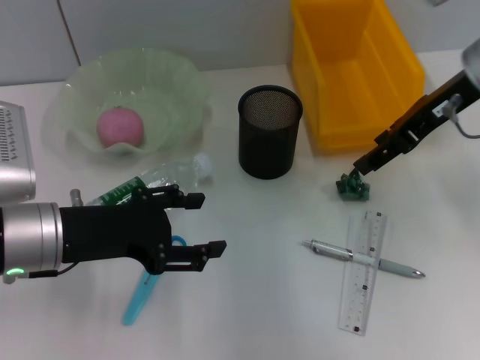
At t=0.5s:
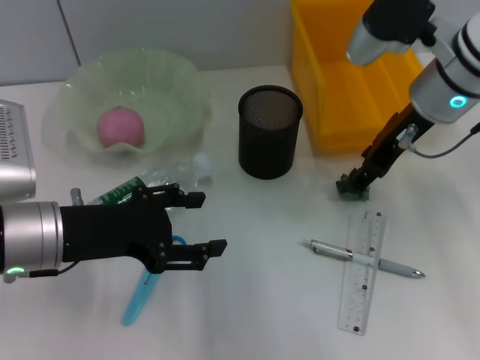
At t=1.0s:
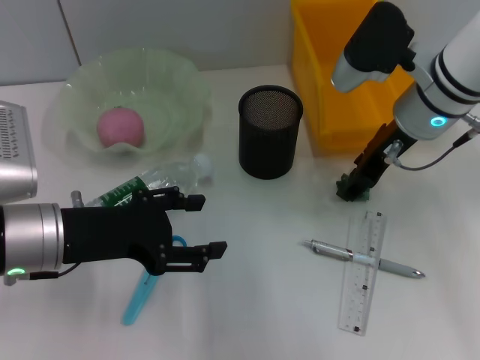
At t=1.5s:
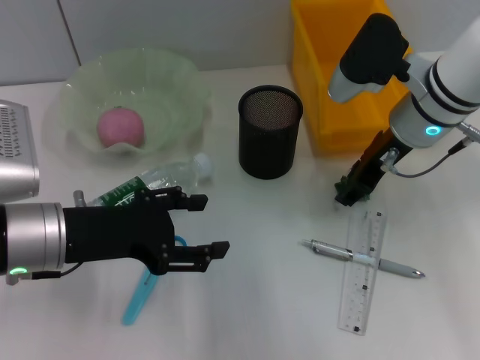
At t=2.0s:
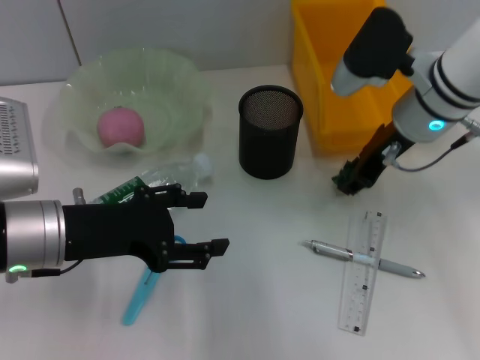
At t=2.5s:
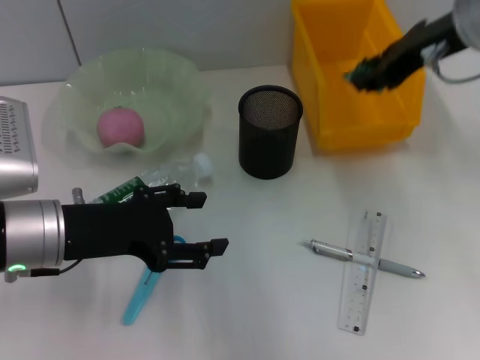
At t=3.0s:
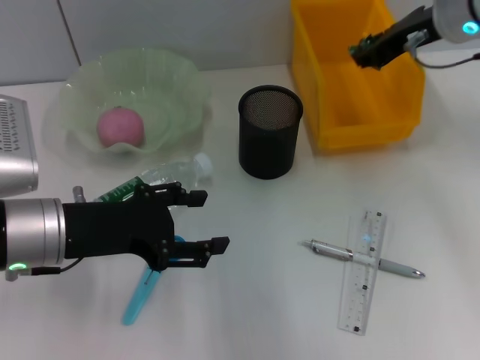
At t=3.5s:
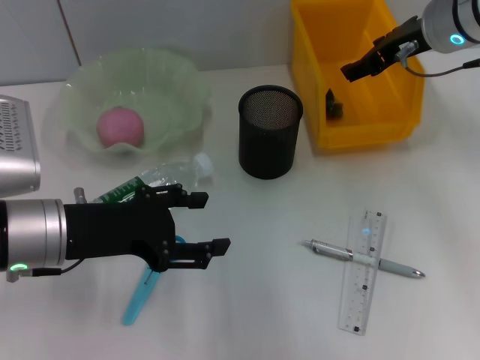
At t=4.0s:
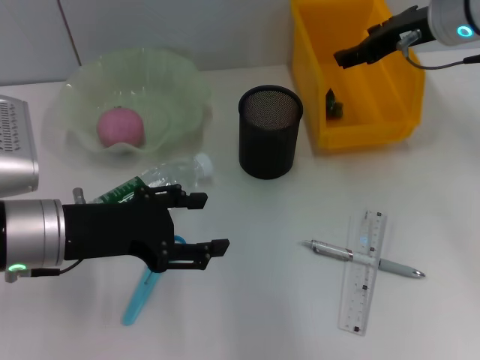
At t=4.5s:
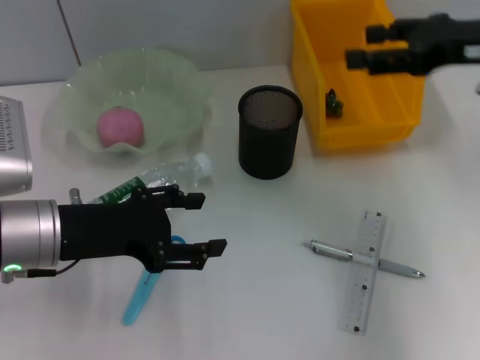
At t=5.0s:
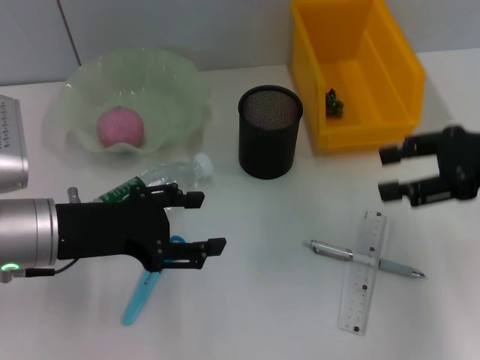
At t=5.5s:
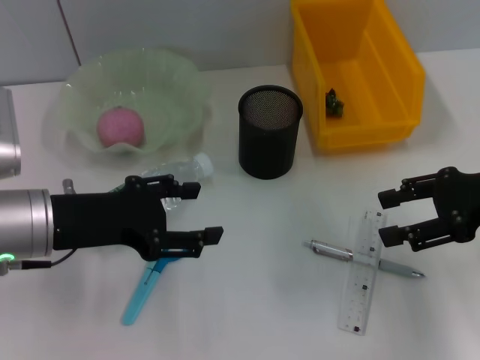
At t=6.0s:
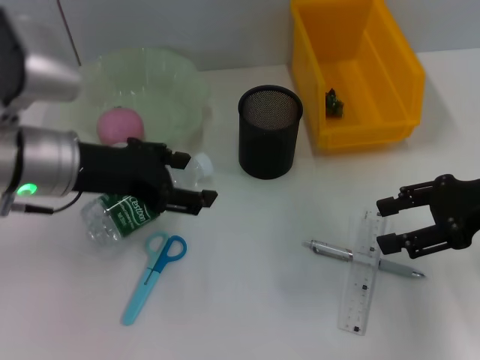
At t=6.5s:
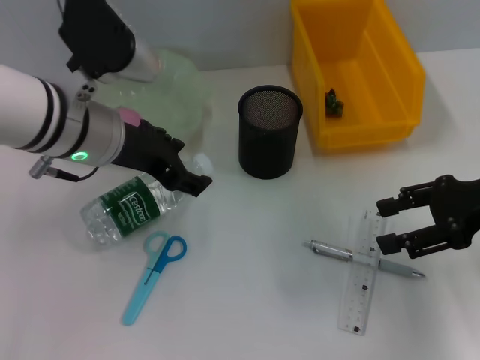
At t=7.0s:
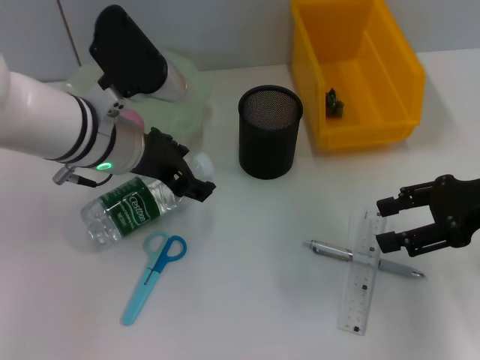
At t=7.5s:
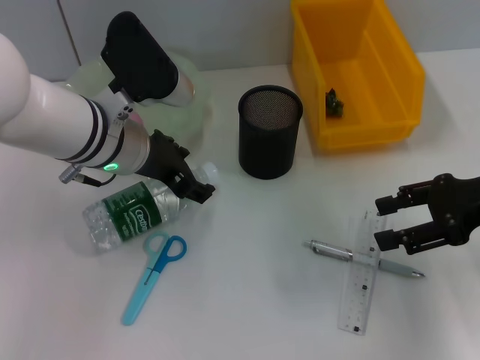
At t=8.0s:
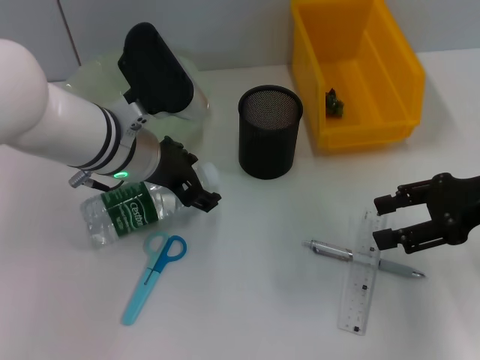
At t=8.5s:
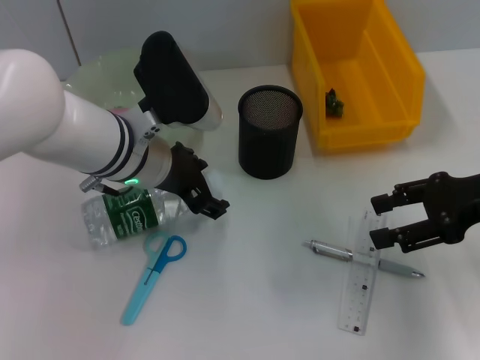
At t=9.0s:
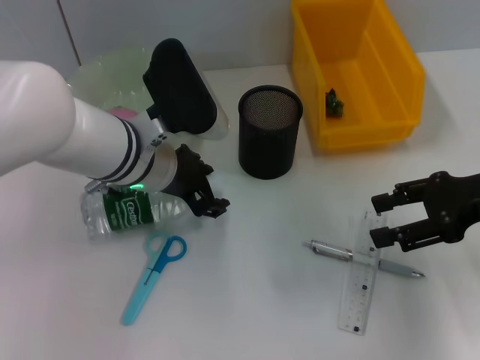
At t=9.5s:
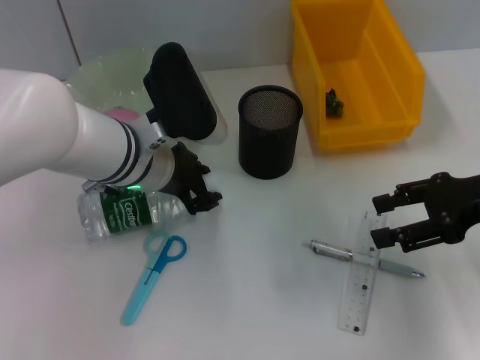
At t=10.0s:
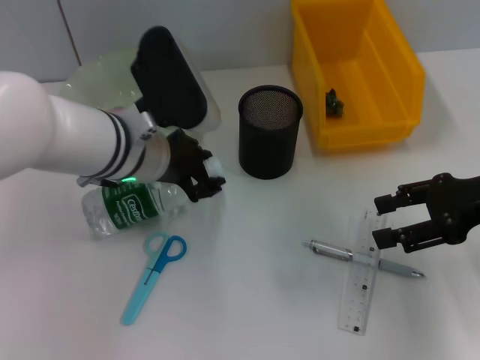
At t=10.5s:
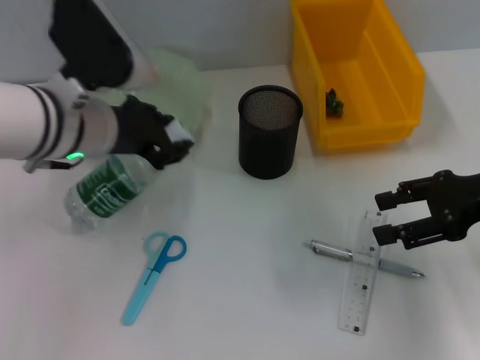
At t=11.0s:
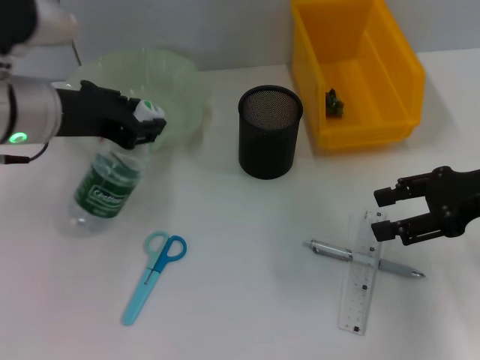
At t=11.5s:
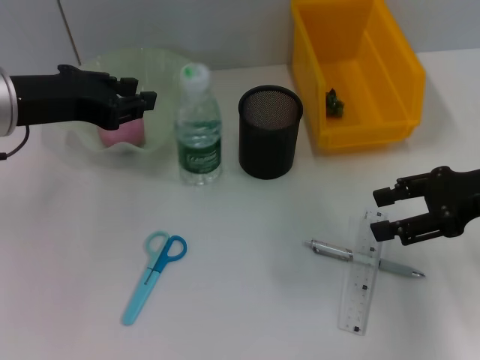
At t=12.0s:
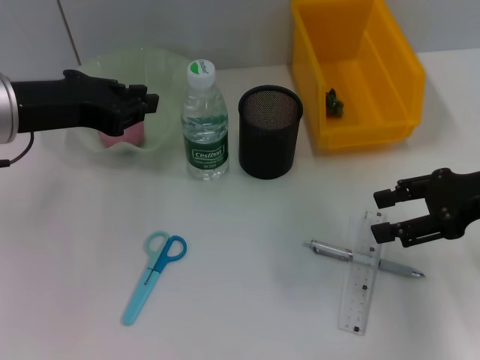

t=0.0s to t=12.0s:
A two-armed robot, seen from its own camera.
Step, t=2.0s to t=3.5s: Place the plastic into the trash can with the right hand.
Step, t=4.0s to t=9.5s: Grab the water bottle with the left hand.
t=0.0s to t=2.0s: The right gripper moves downward, some 5 cm.
t=2.0s to t=4.0s: The right gripper heads upward, covering roughly 5 cm.
t=4.0s to t=6.0s: The right gripper goes some 15 cm backward, to the right and downward; the left gripper ends up some 5 cm from where it was.
t=6.0s to t=8.0s: The left gripper is displaced to the right by about 5 cm.
t=8.0s to t=10.0s: The left gripper closes.
t=10.0s to t=12.0s: The left gripper travels to the left and upward by some 15 cm.

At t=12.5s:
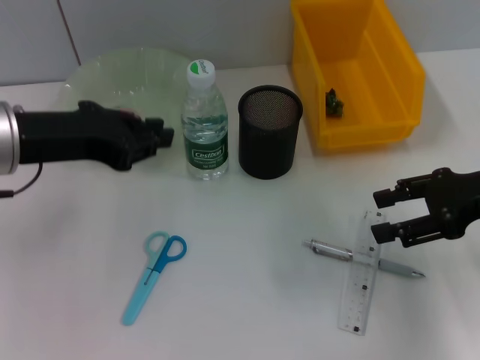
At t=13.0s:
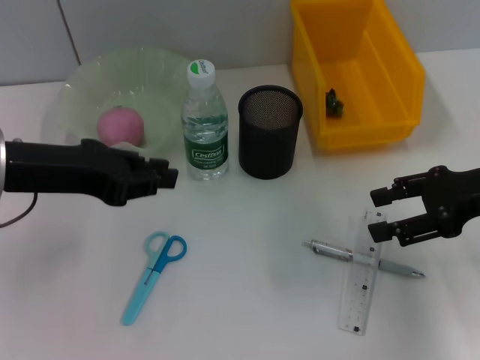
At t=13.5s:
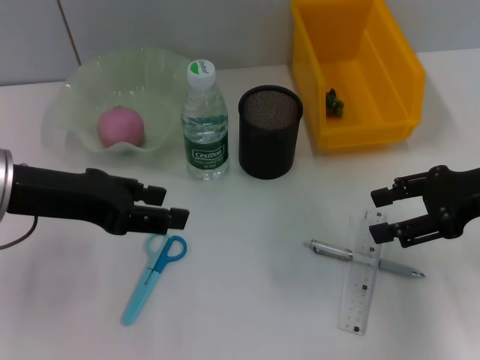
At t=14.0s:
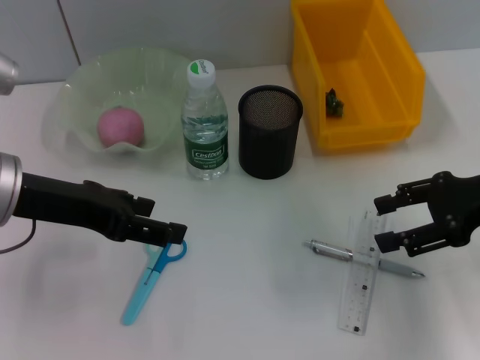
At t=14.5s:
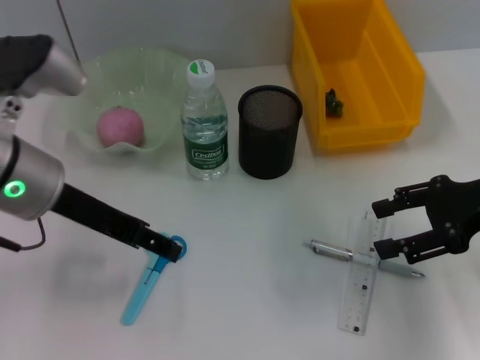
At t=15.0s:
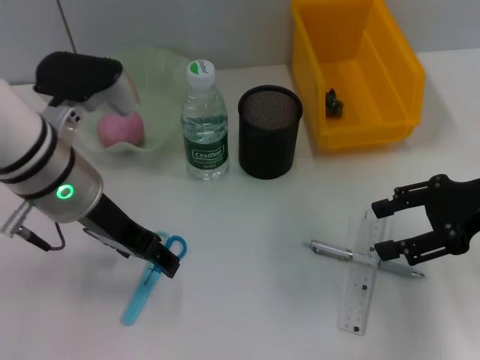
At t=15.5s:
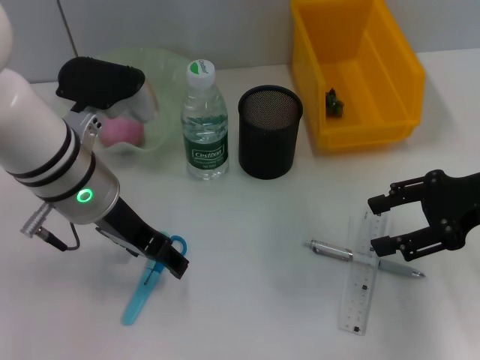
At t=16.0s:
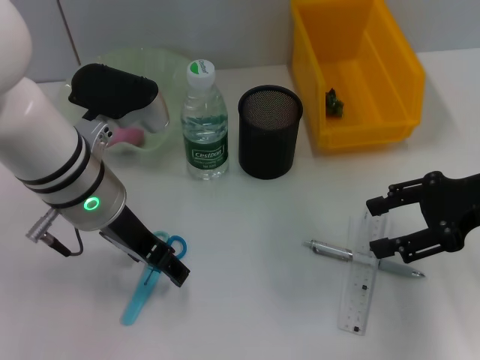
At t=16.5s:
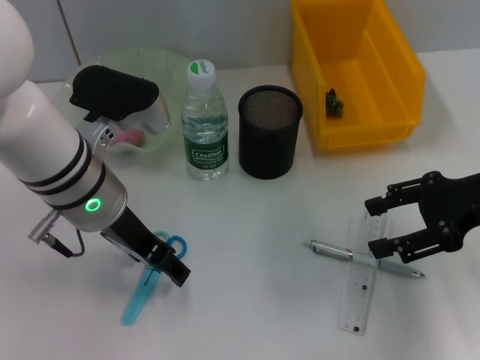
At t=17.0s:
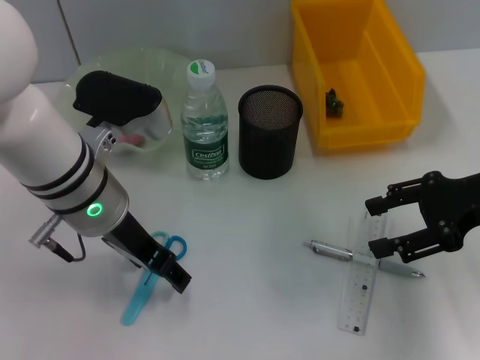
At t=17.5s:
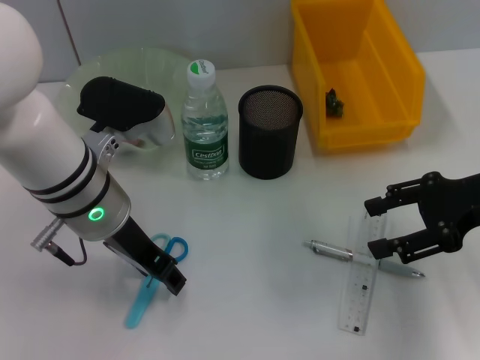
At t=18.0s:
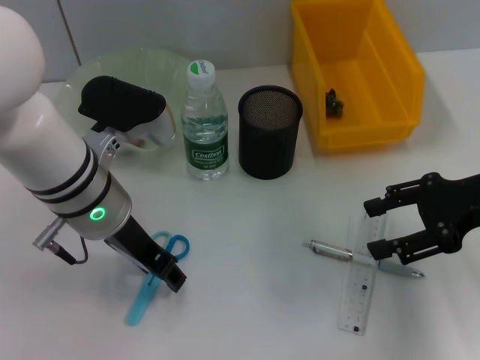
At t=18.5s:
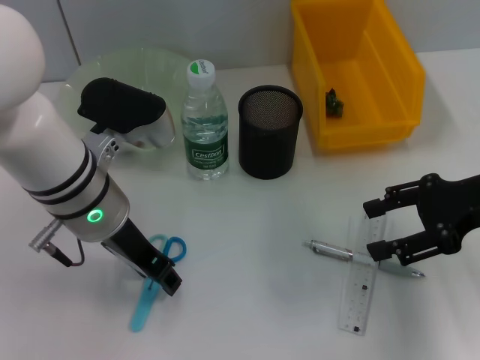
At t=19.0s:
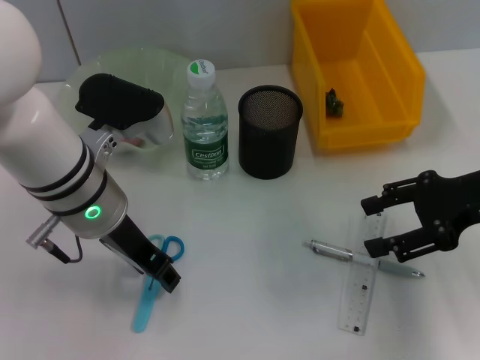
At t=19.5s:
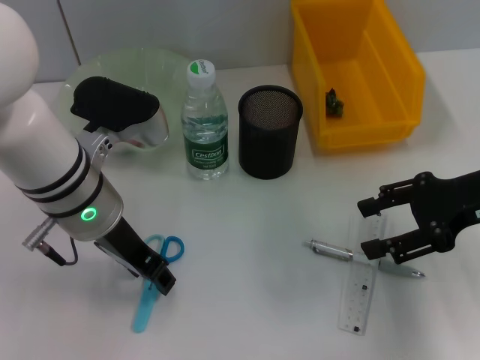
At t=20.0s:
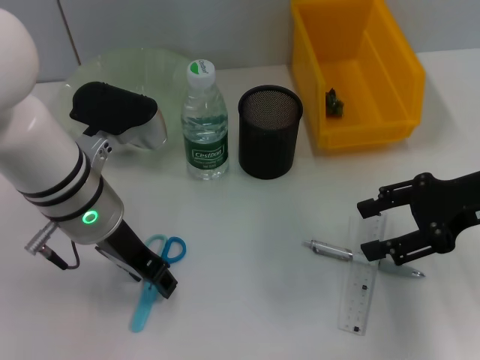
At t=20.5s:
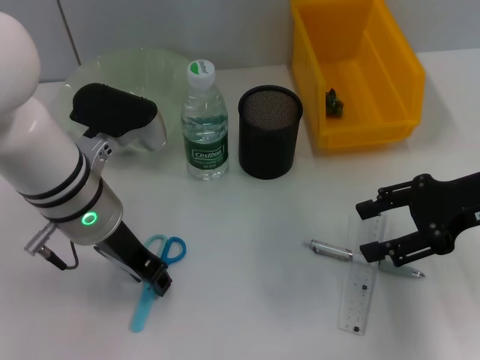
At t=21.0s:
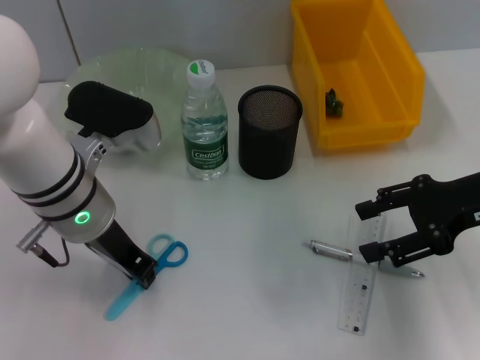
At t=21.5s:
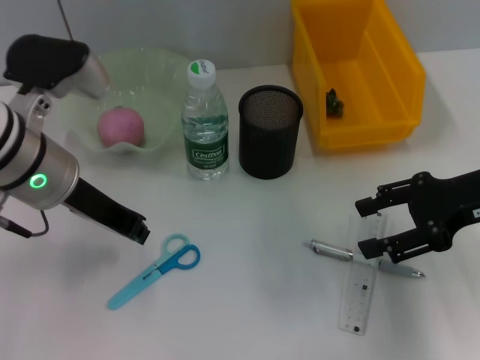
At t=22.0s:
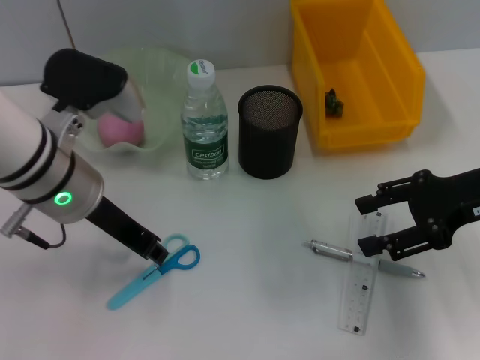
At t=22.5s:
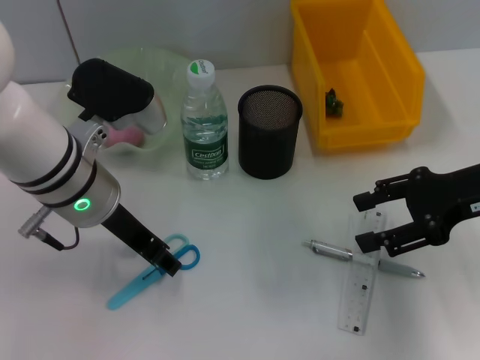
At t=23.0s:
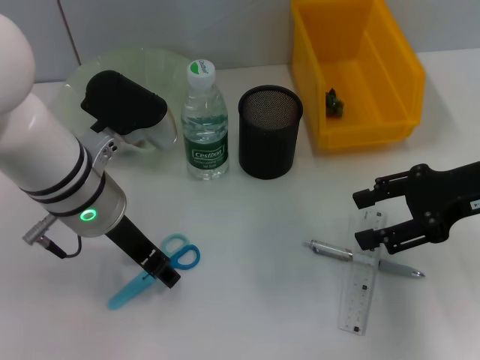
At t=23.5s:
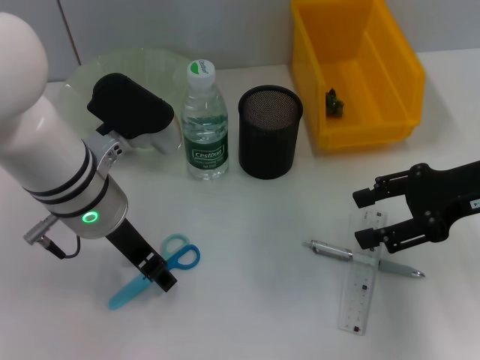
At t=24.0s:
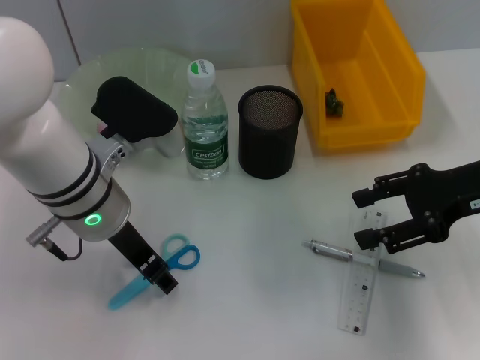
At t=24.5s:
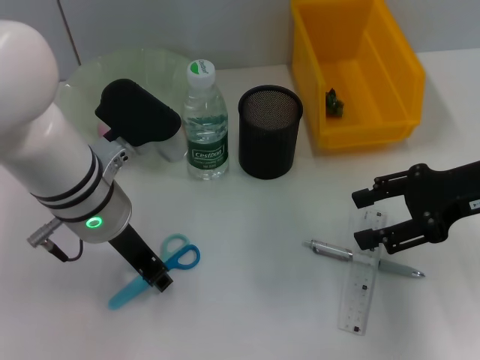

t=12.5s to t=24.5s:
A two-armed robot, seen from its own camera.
t=12.5s to t=14.5s: The left gripper opens its fingers.
t=14.5s to t=16.5s: The left gripper is displaced to the right by roughly 5 cm.
t=16.5s to t=20.5s: The two grippers keep their place.
t=20.5s to t=24.5s: The grippers move only a little.

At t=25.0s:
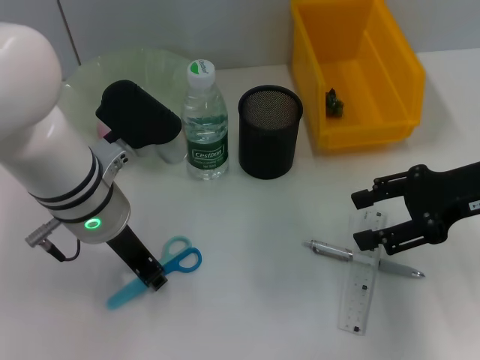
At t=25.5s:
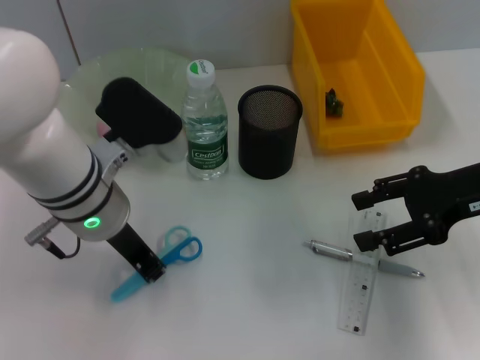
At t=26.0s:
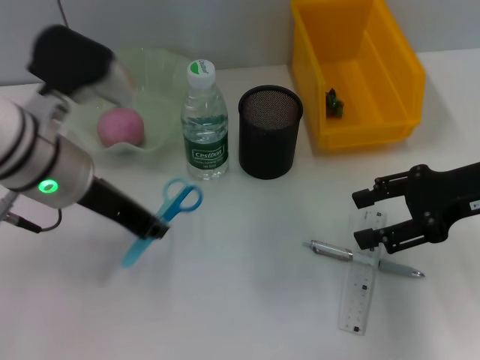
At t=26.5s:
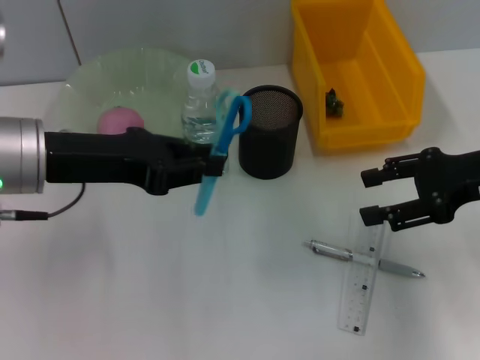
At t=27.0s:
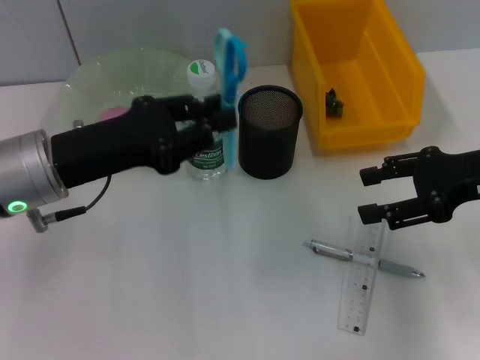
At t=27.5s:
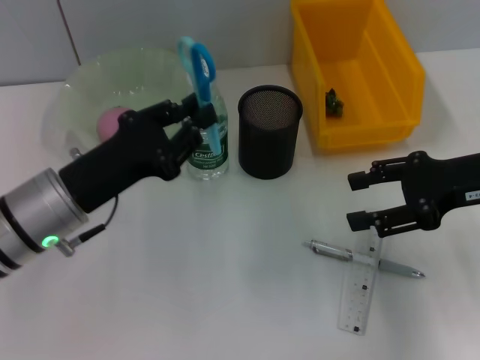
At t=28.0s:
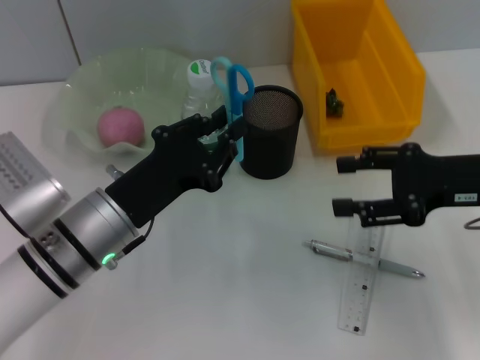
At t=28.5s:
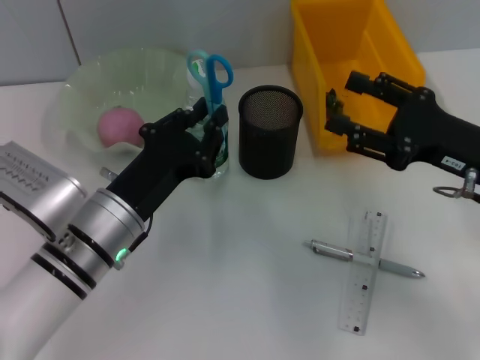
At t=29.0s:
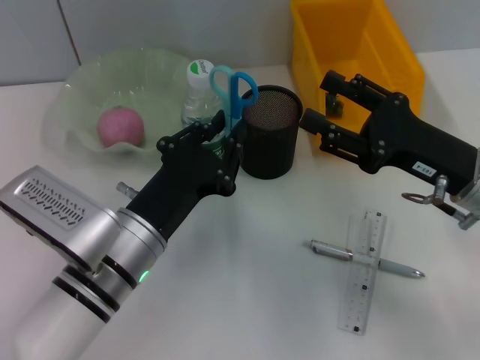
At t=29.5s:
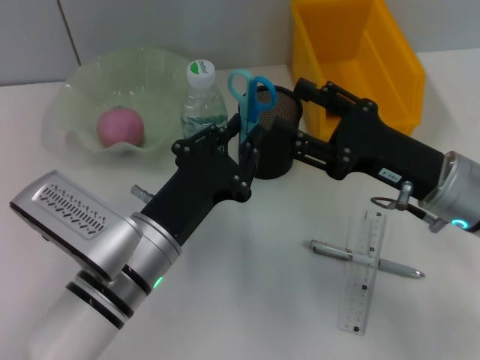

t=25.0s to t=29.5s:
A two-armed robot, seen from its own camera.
t=25.0s to t=27.0s: The left gripper moves to the left, approximately 5 cm.
t=27.0s to t=29.5s: The left gripper shifts about 15 cm to the right, downward and backward; the right gripper moves to the left and downward, some 10 cm.
